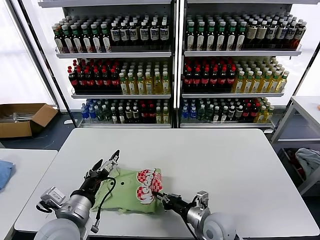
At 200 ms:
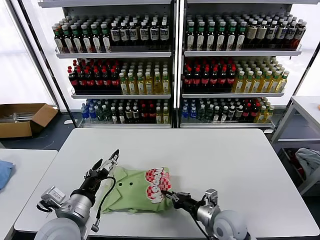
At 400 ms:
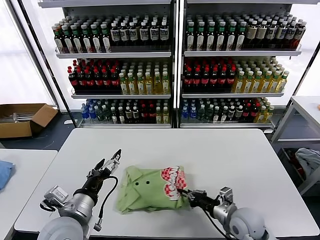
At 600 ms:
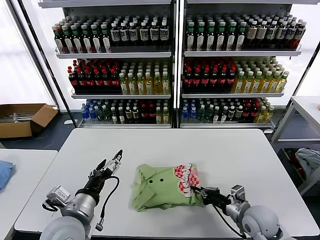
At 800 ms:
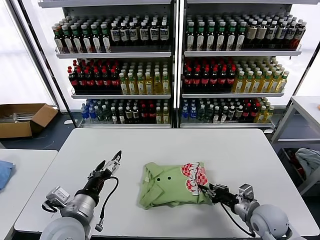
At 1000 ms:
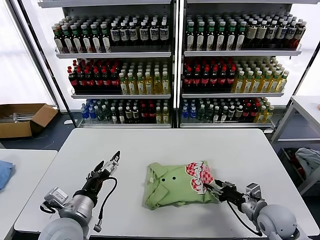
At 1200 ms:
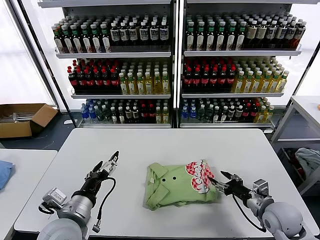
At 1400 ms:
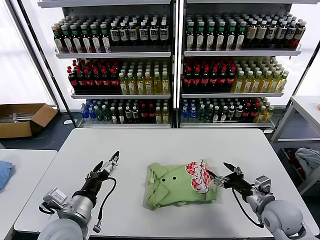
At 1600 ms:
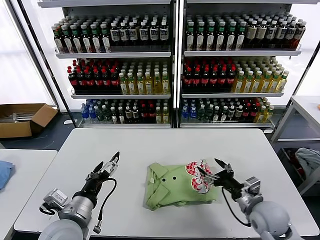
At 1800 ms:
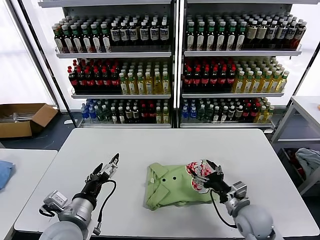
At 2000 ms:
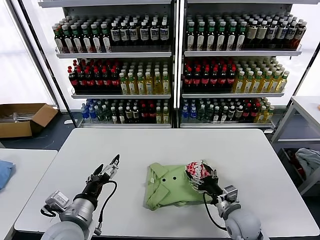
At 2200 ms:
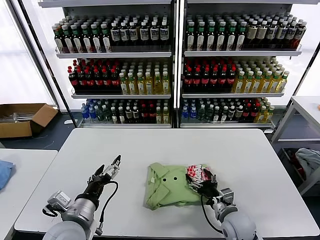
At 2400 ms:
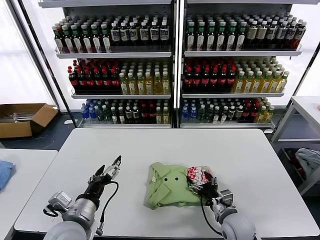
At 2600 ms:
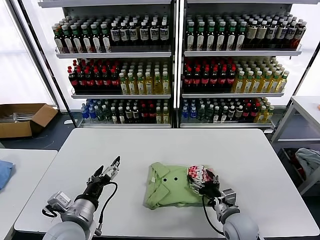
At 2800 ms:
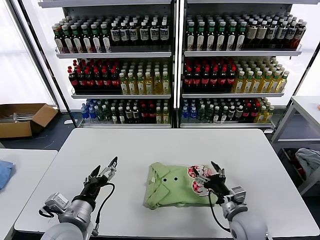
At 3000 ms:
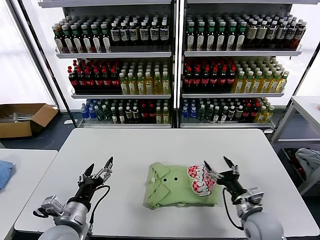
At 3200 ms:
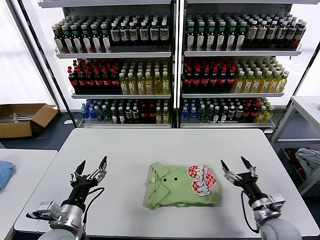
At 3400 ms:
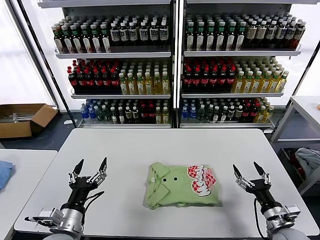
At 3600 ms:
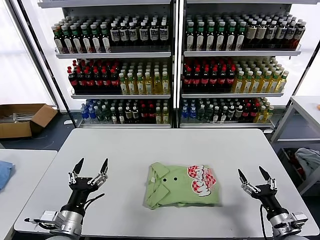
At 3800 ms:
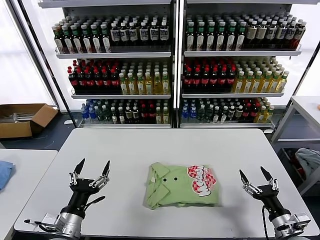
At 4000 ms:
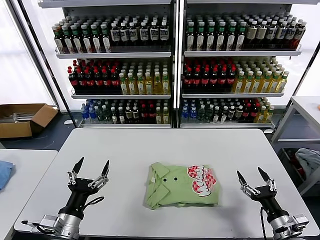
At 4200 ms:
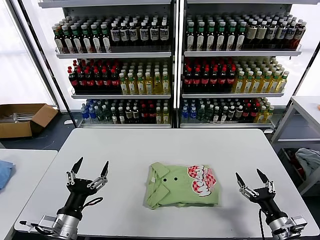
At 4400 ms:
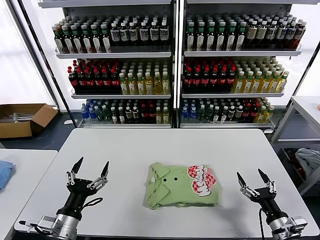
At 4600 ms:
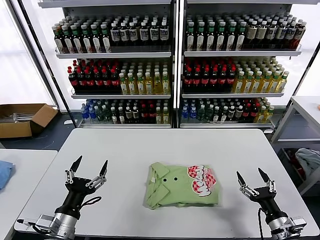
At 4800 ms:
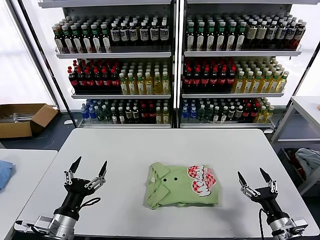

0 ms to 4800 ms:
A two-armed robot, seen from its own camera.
Task of the whole recording: fold and organize the clothes.
Step, 0 ms to 2600 ms: Drag the clothes to the center of the table.
0 ms to 1600 ms: The right gripper goes roughly 15 cm to the right and upward, and opens its fingers.
1600 ms to 3200 ms: The left gripper moves about 5 cm. The right gripper moves about 5 cm to the left and comes back.
3200 ms to 4800 ms: The right gripper moves backward, roughly 5 cm.
